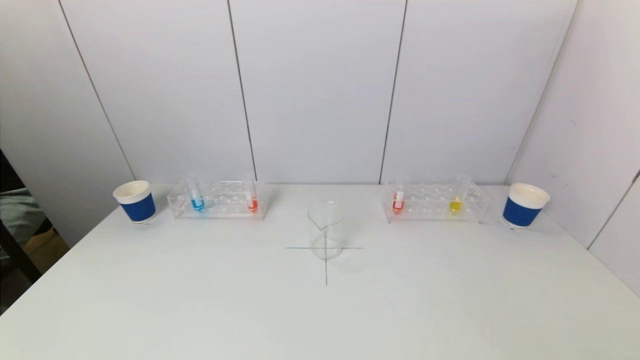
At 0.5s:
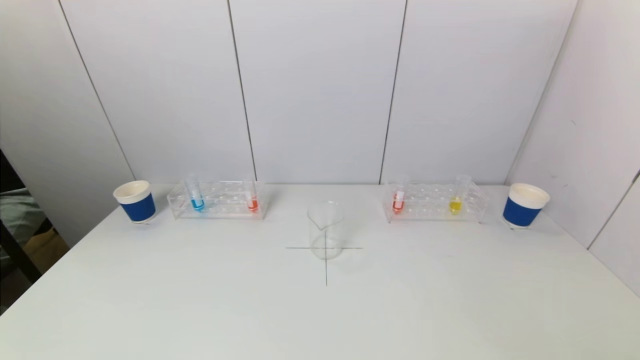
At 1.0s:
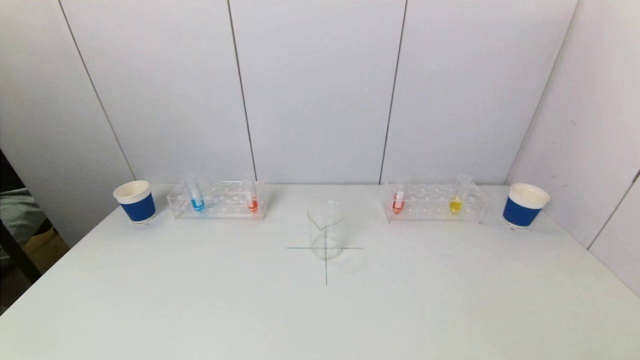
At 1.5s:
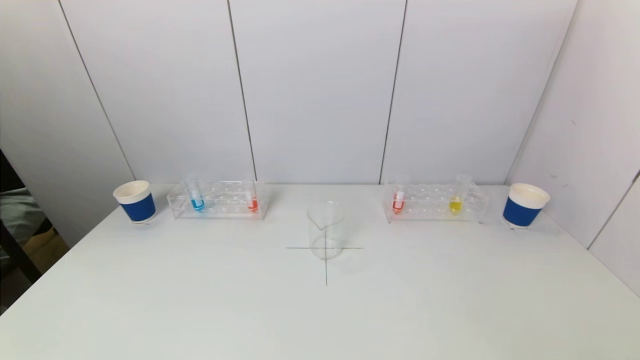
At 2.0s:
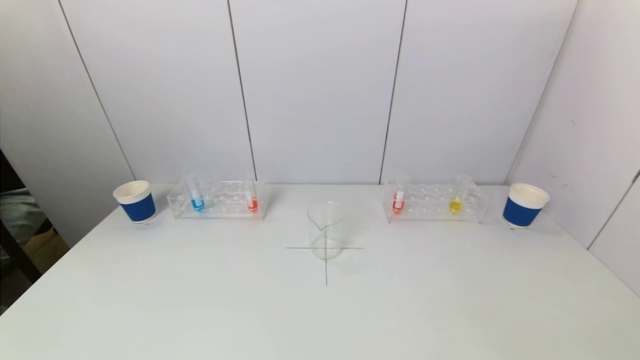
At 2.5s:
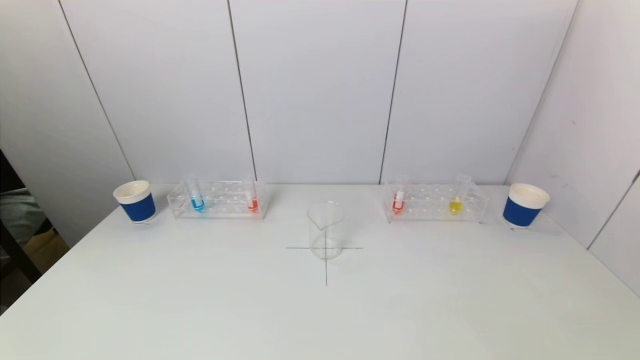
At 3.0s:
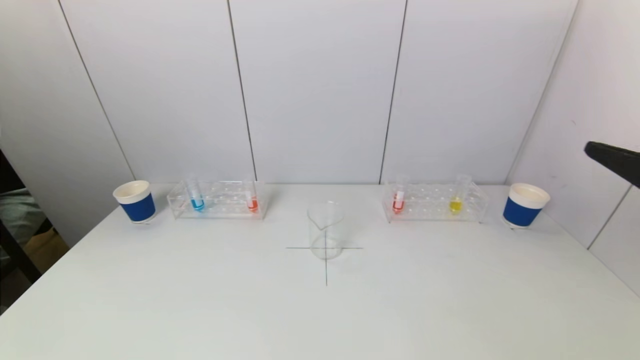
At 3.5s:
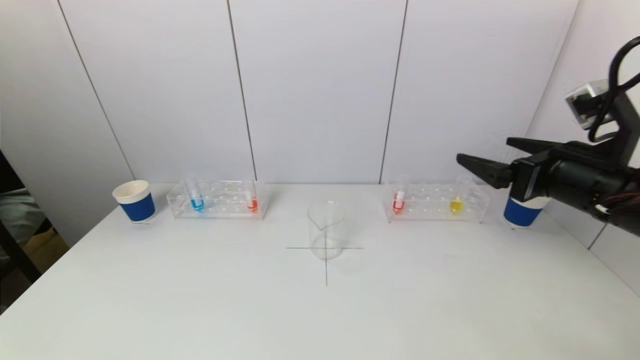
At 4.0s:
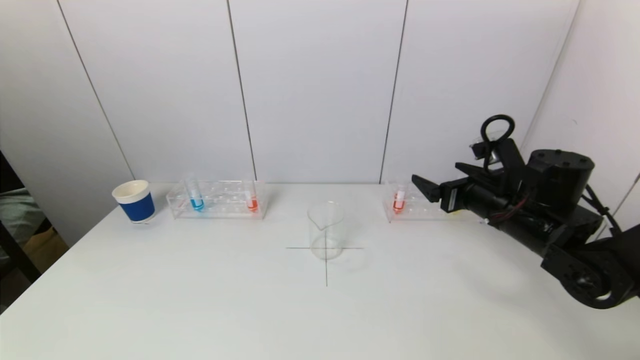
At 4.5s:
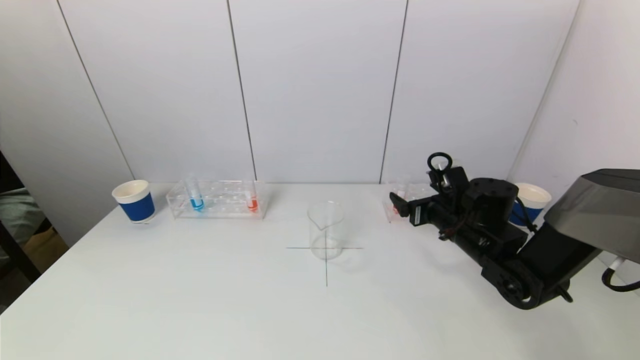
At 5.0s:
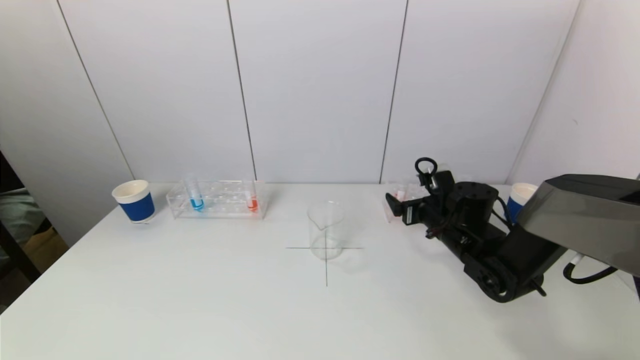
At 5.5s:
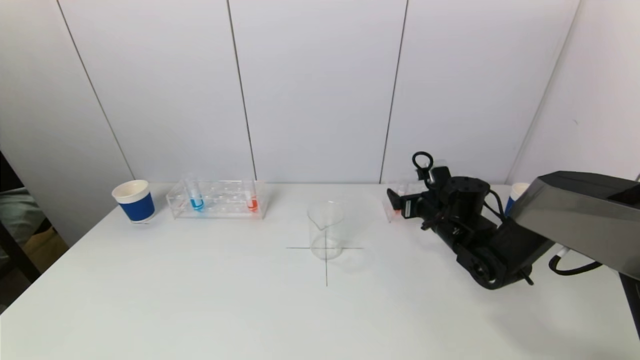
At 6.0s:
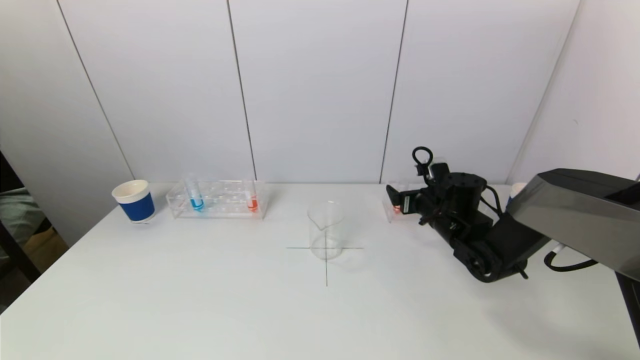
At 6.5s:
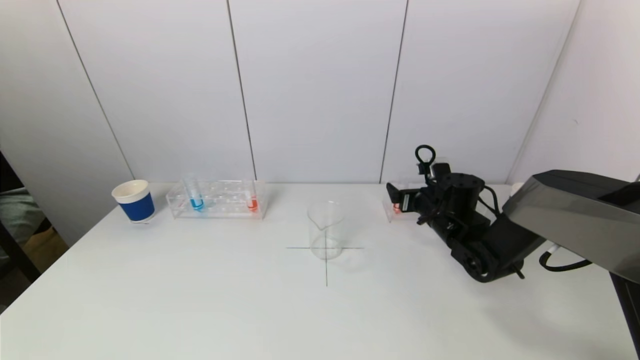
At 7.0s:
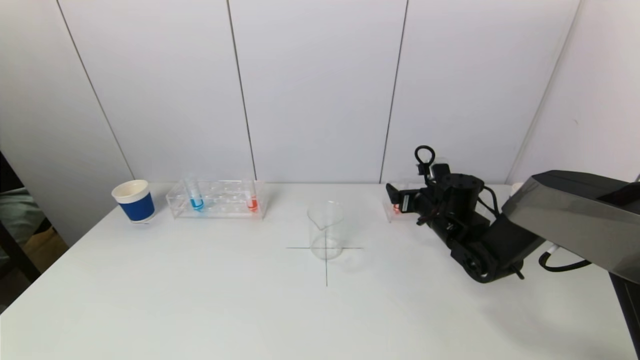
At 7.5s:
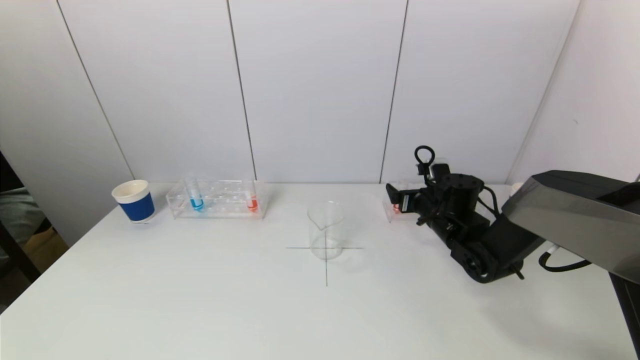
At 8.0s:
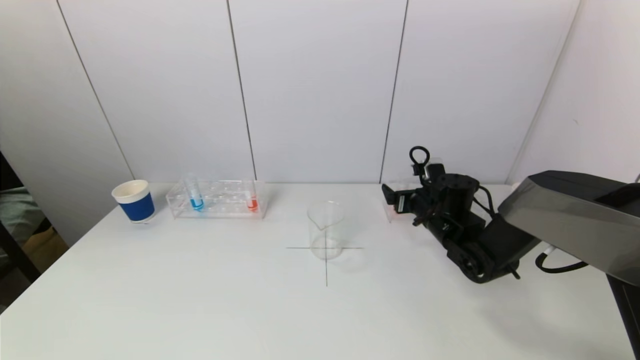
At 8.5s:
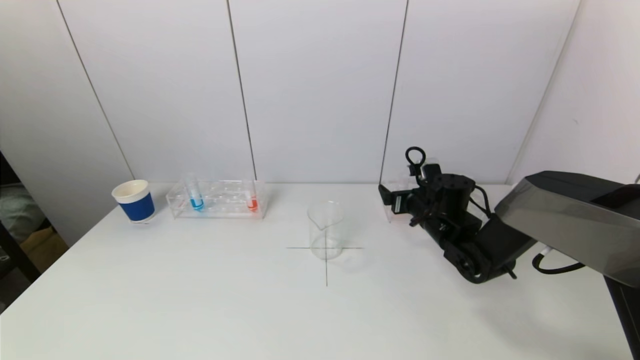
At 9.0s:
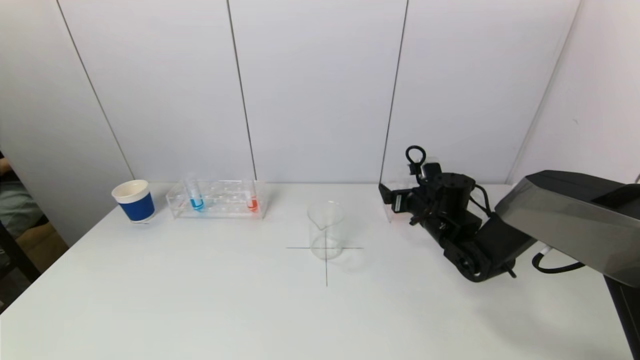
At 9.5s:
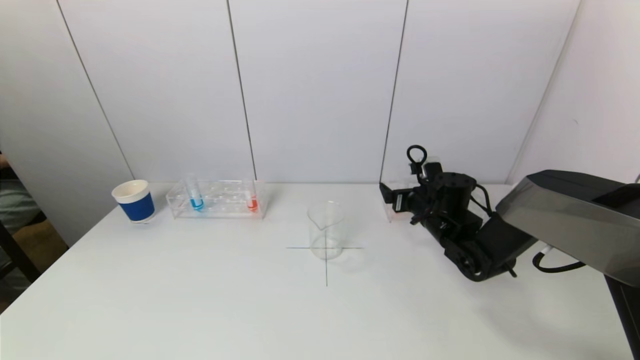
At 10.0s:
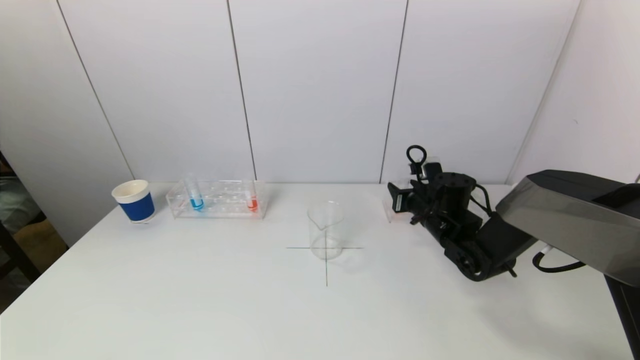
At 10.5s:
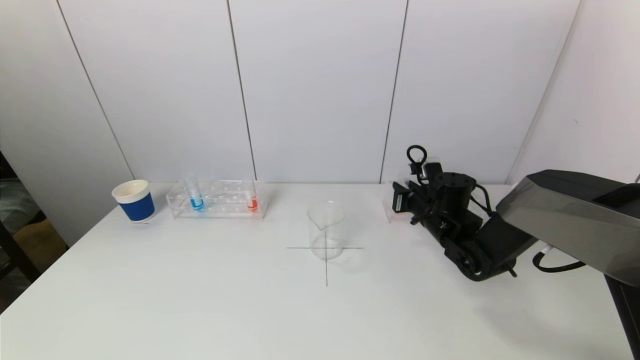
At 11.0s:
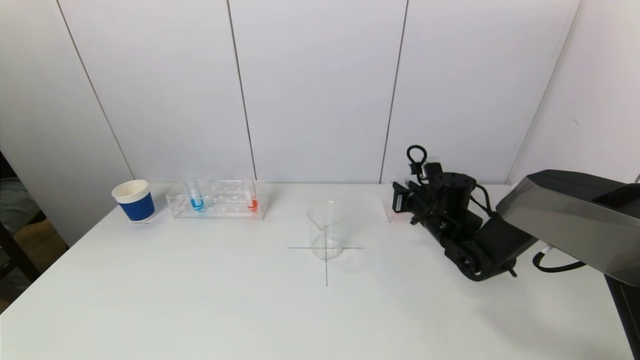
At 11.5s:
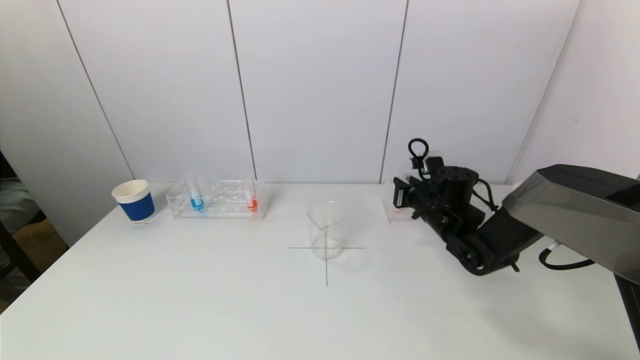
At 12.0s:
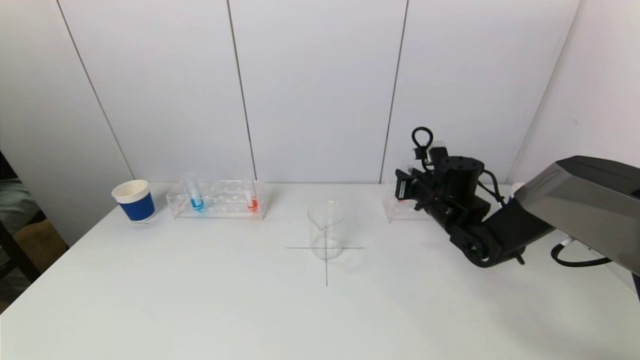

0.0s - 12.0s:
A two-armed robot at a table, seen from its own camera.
Task of the whole recording: pick up a test tube with pigment on left test tube rack and a test tube with pigment on right test tube rack by grippers and pour them into the beaker.
Step, 0.0s - 10.5s: Grasp the red reagent with the right gripper.
2.0s - 4.0s: The right gripper heads forward, covering some 35 cm.
4.0s - 6.0s: The right gripper is displaced forward and downward by approximately 10 cm.
6.0s - 8.0s: Both grippers stay put.
8.0s - 10.0s: The right gripper closes.
10.0s - 12.0s: The grippers move only a little.

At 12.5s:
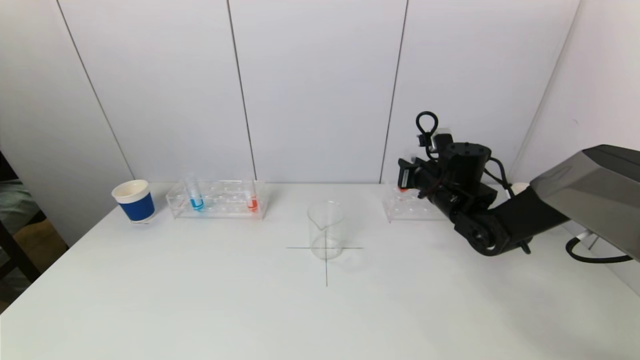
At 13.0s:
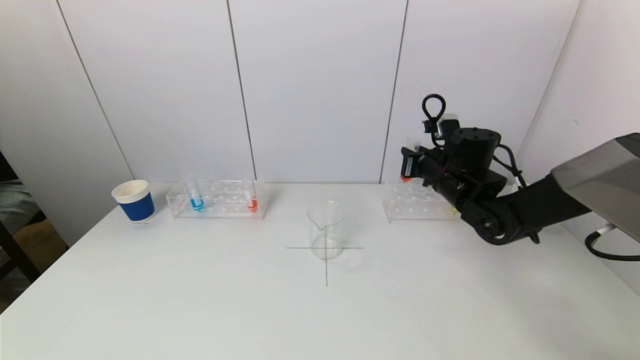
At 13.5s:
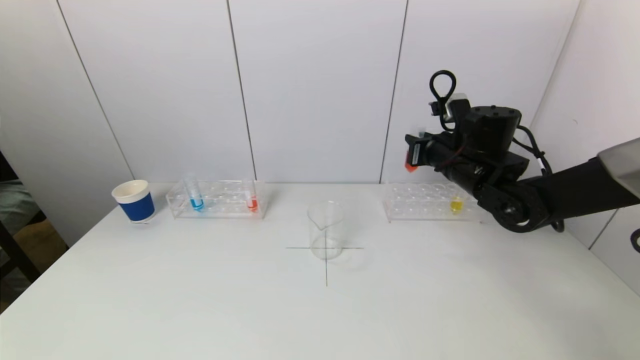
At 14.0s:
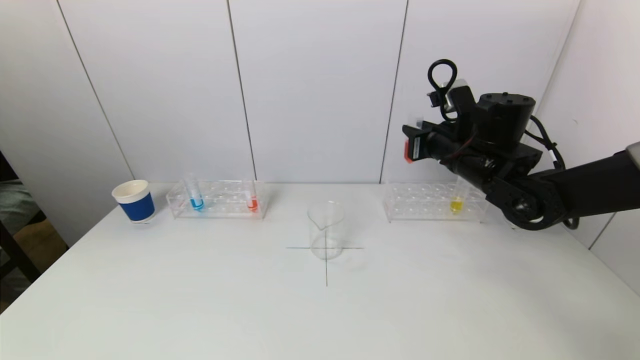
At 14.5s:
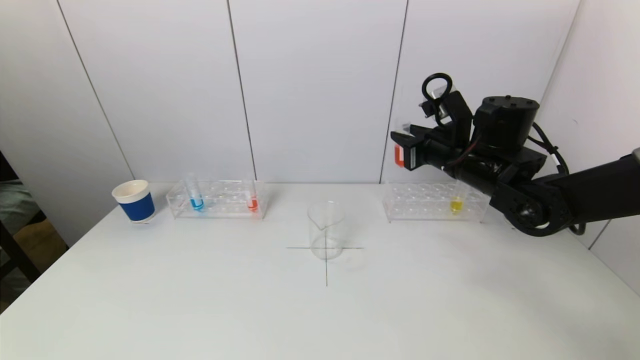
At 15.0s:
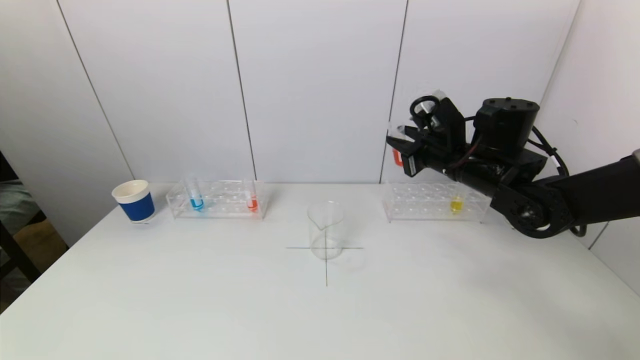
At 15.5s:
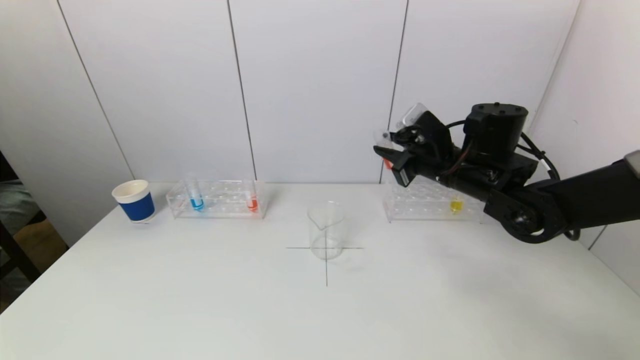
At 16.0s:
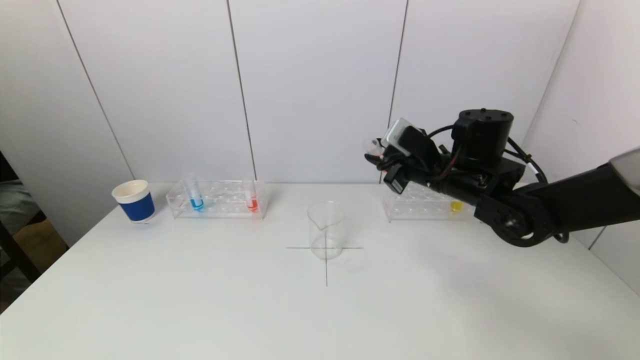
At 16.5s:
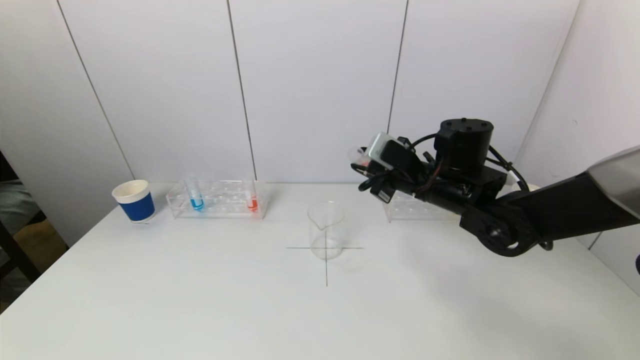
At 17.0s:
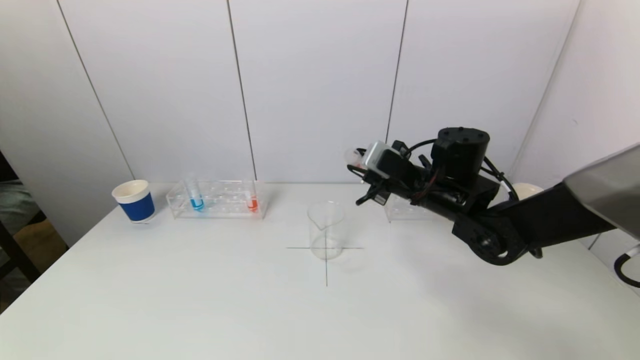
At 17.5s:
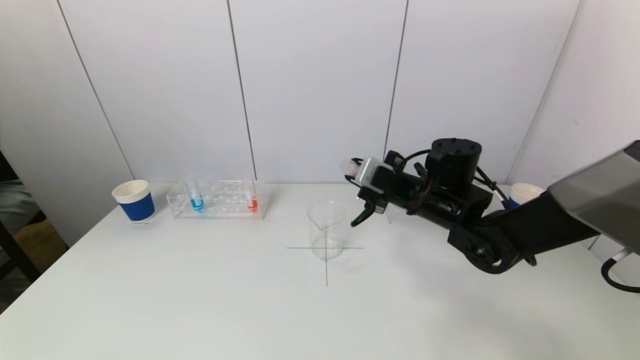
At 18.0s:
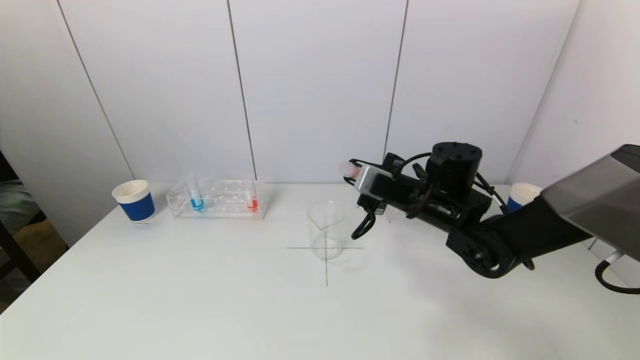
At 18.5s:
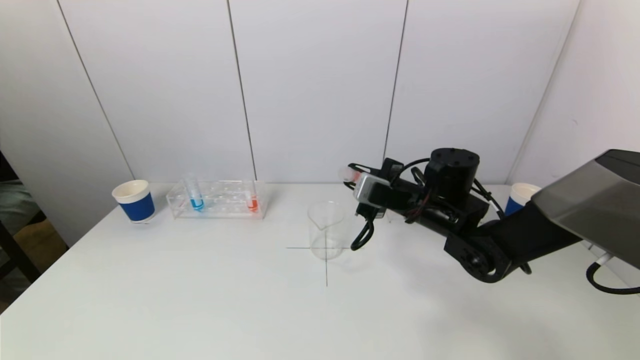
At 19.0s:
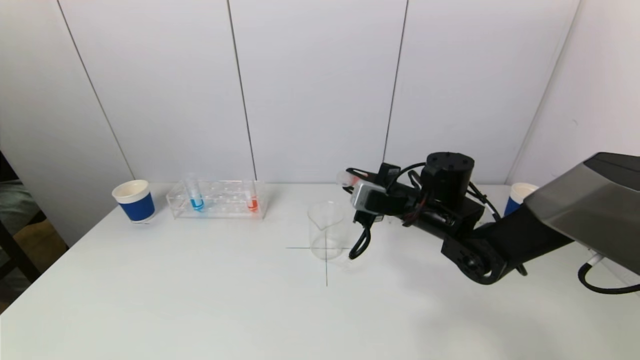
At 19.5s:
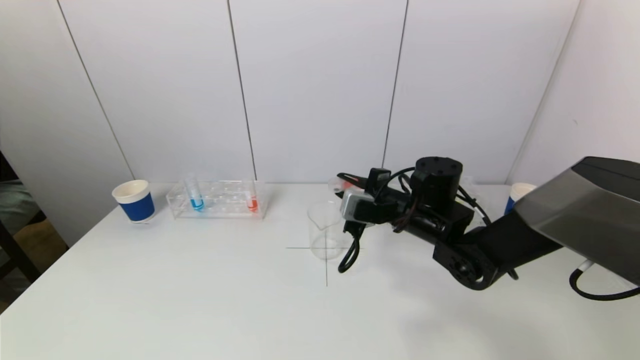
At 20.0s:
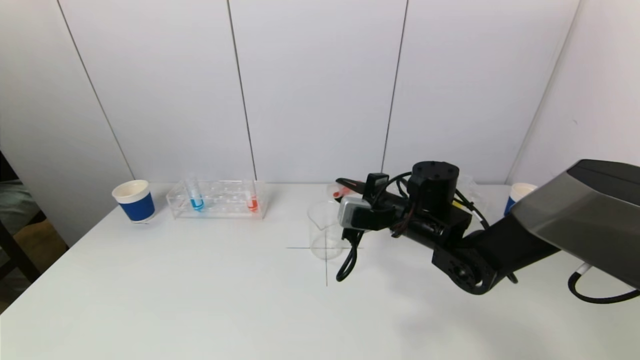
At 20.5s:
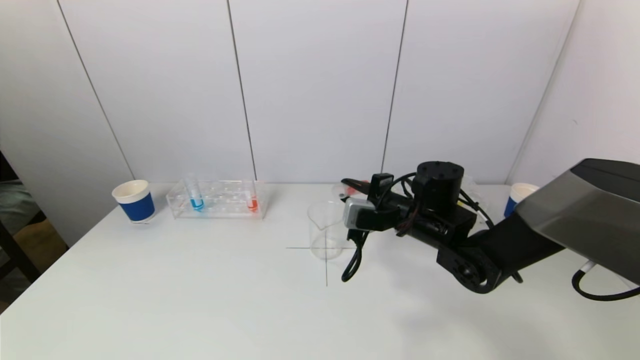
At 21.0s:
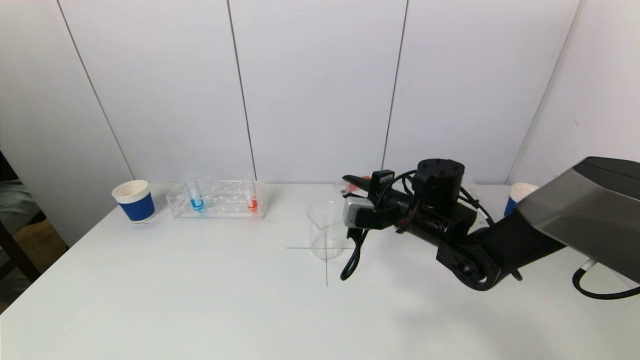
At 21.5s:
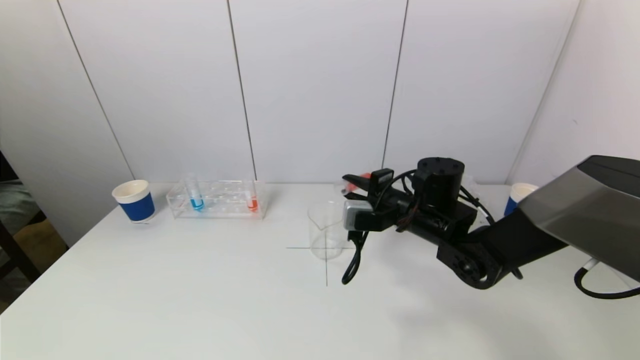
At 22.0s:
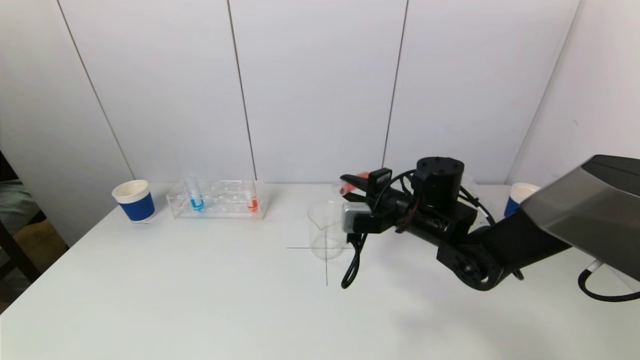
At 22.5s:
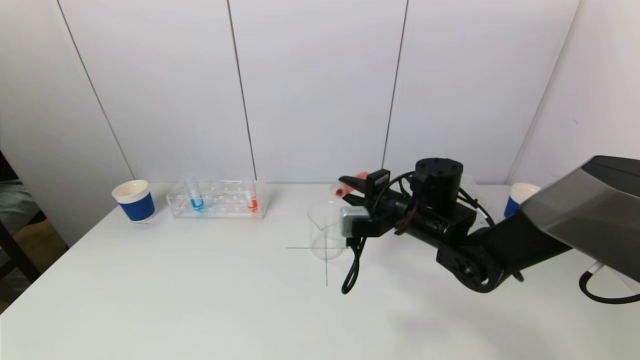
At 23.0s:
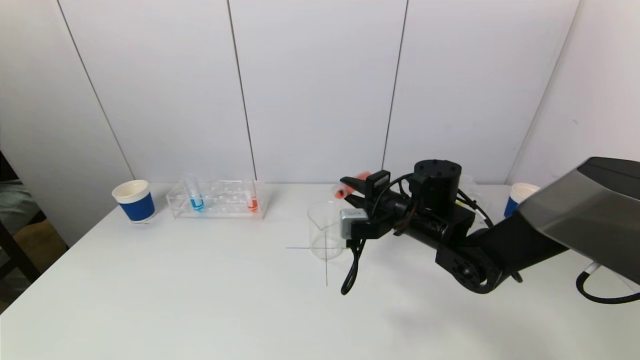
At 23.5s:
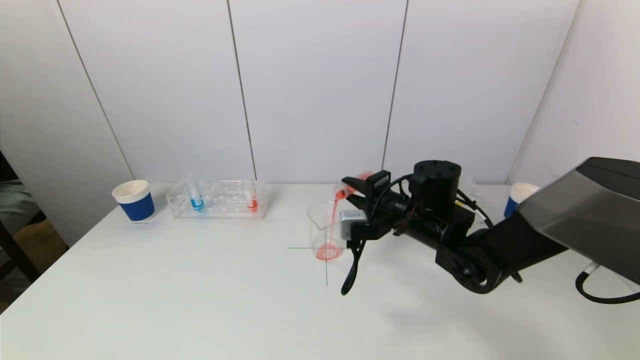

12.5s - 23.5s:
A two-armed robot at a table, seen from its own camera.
Task of the whole recording: pick up a test tube with pigment on left test tube rack and a test tube with pigment on right test tube rack by grippers and pour them into the beaker.
12.5s - 14.5s: The right gripper shifts about 10 cm upward.
16.0s - 18.0s: The right gripper moves about 5 cm.
18.0s - 20.0s: There are only small adjustments of the grippers.
20.0s - 23.5s: The grippers move only a little.
